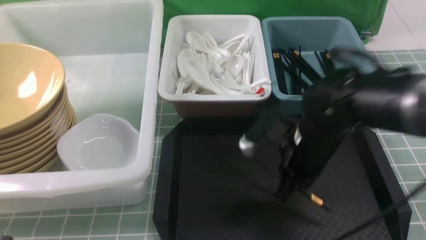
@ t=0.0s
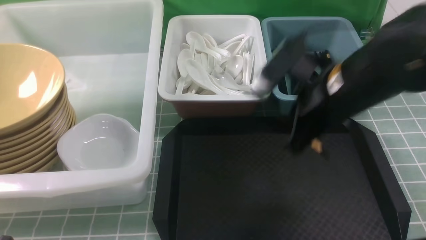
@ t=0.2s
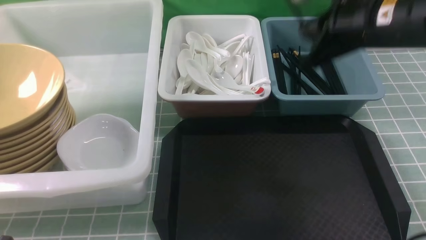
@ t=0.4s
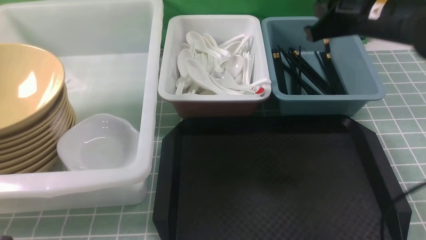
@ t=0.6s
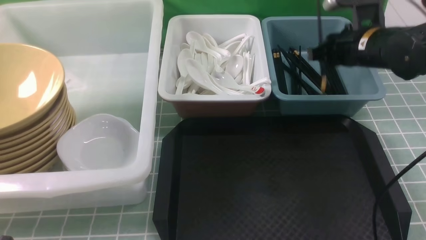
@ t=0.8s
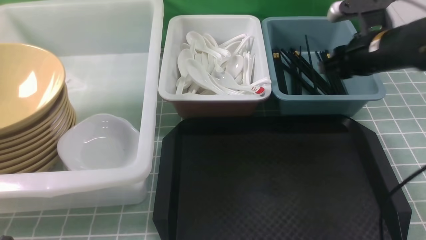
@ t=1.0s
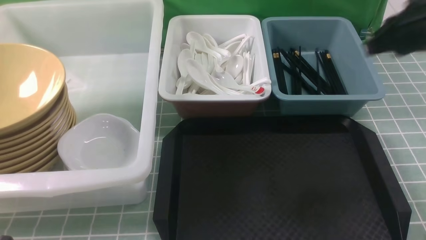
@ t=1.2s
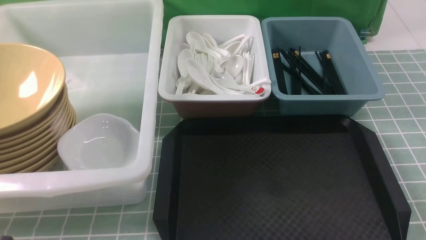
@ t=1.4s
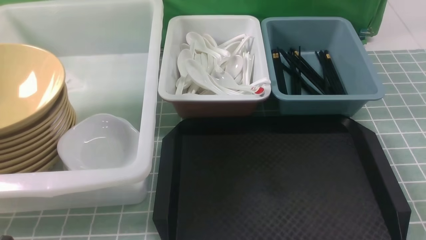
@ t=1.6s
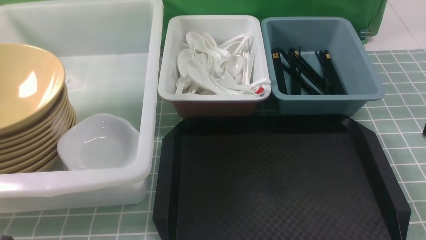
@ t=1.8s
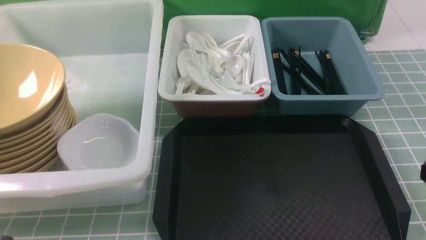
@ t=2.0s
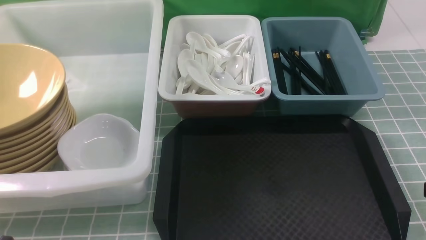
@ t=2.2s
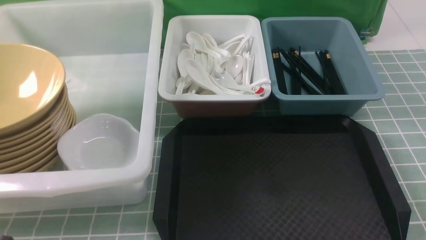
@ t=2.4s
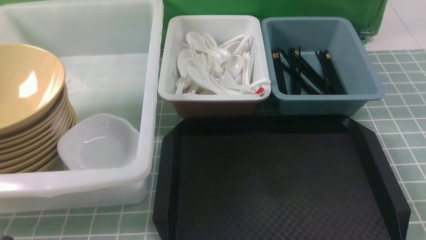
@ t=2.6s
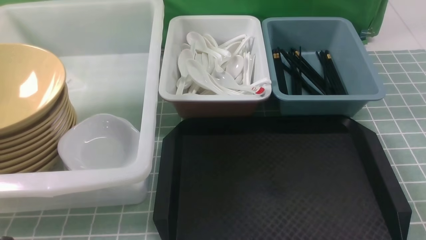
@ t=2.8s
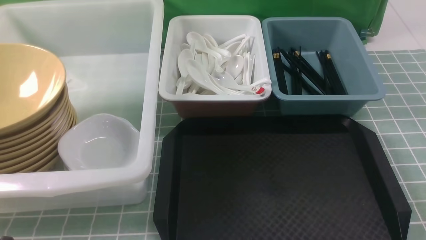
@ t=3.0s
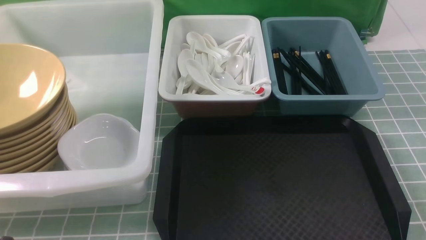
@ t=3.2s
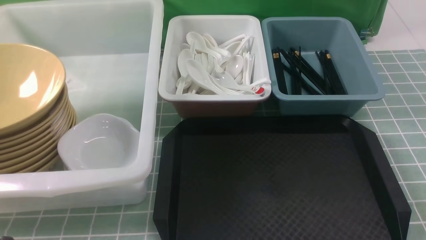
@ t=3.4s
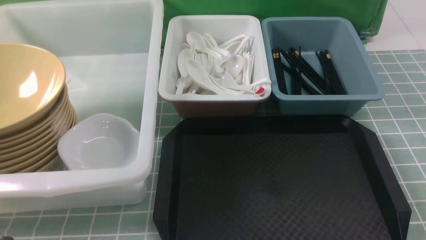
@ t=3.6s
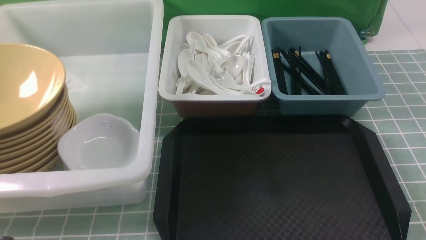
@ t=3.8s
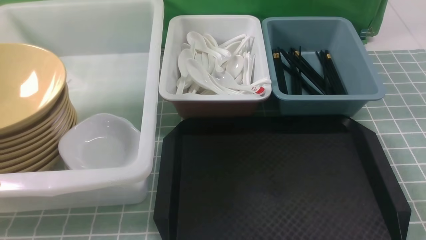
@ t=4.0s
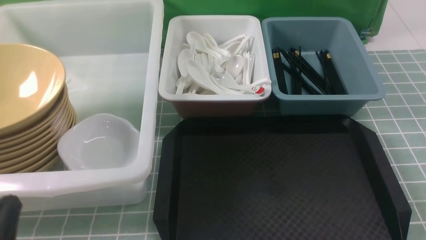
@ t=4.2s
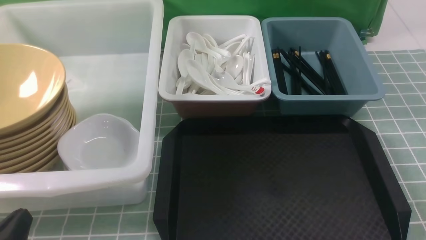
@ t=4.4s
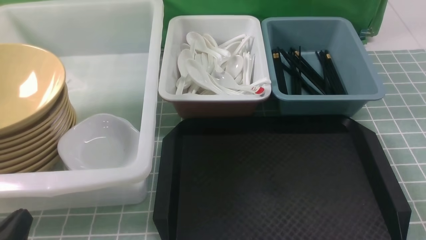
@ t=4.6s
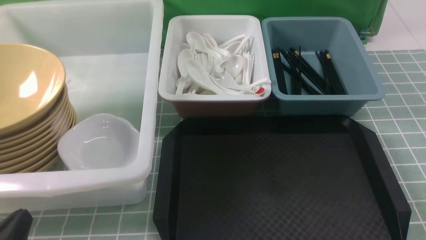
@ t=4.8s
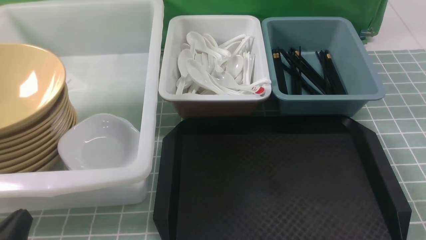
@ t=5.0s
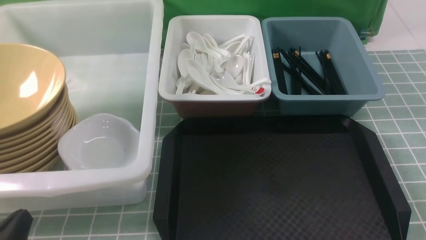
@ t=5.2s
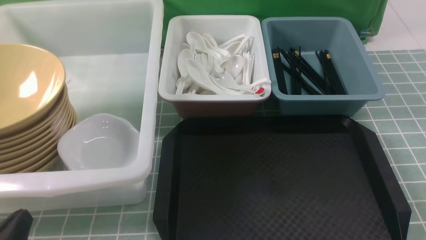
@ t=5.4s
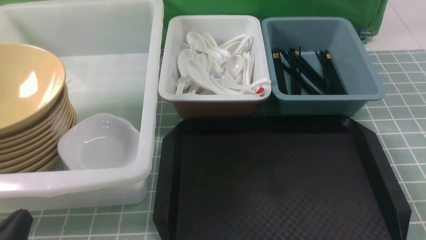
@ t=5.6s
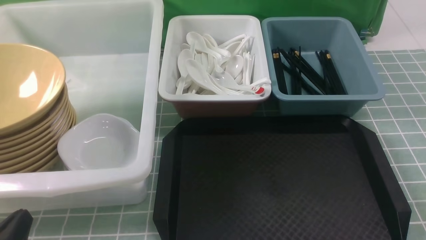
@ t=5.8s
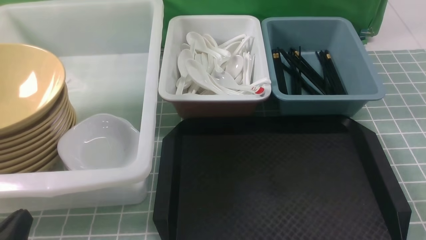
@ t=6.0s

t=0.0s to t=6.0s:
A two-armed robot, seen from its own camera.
Task of the whole recording: on blue table put chopsticks spoon bowls plates into blue grey white boxes.
Step, t=0.2s to t=0.8s: use the right arm to put a chopstick into the small storage box on the right.
t=0.0s to t=1.6s: The right gripper goes some 25 cm to the right, backward and upward.
t=3.0s to t=4.4s: The left gripper shifts some 10 cm downward.
t=4.4s to t=6.0s: The two grippers keep their place.
